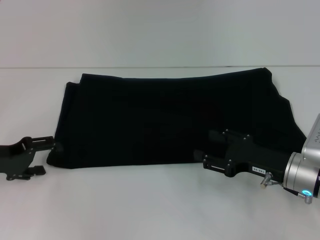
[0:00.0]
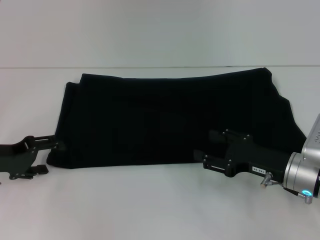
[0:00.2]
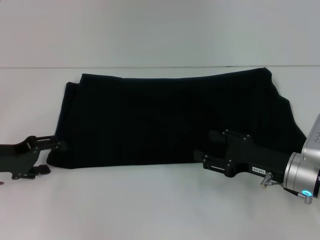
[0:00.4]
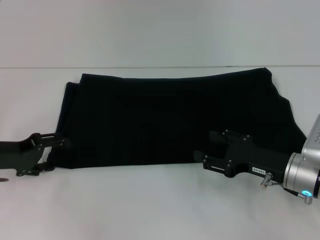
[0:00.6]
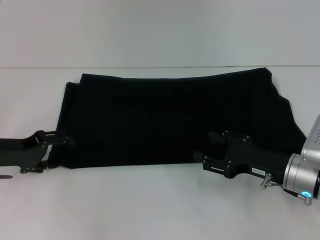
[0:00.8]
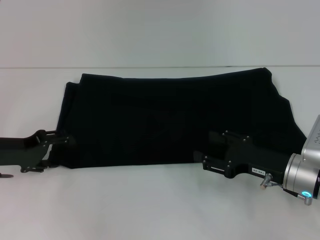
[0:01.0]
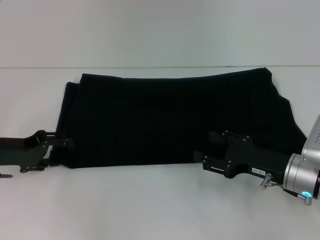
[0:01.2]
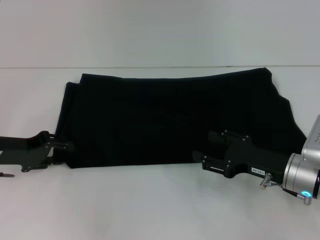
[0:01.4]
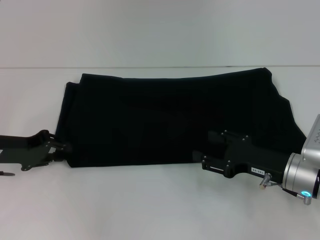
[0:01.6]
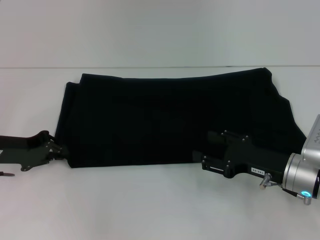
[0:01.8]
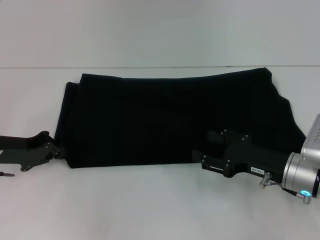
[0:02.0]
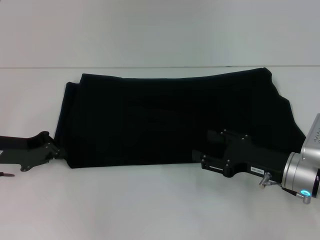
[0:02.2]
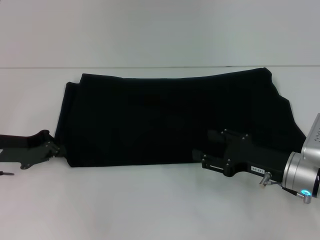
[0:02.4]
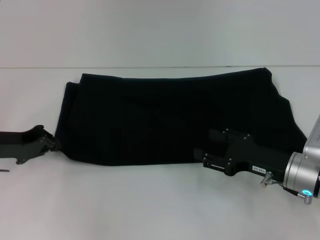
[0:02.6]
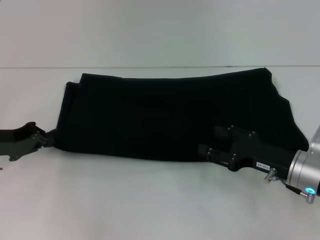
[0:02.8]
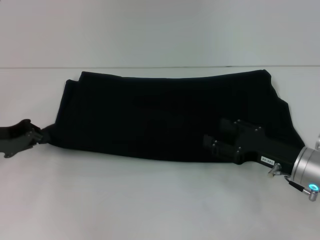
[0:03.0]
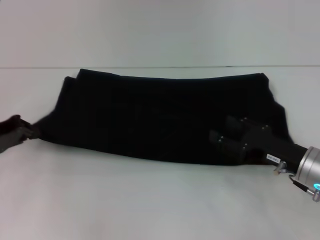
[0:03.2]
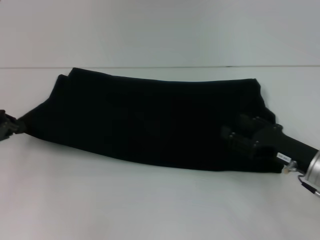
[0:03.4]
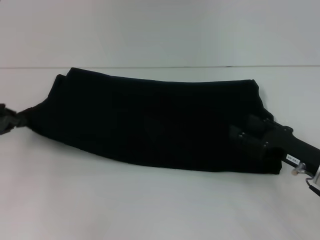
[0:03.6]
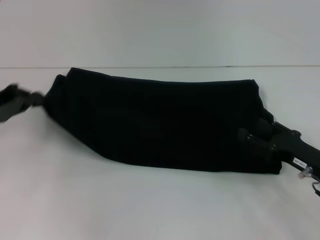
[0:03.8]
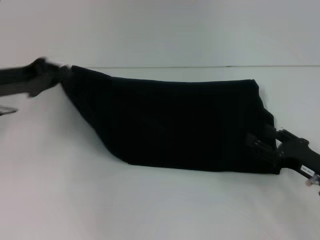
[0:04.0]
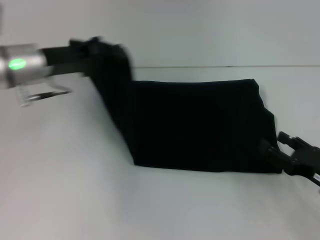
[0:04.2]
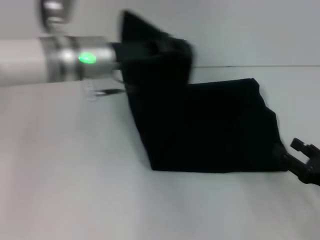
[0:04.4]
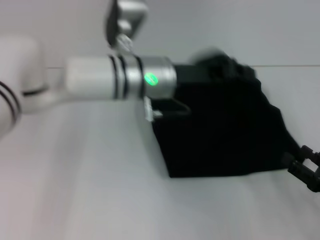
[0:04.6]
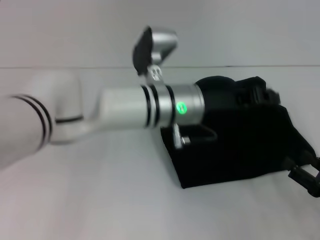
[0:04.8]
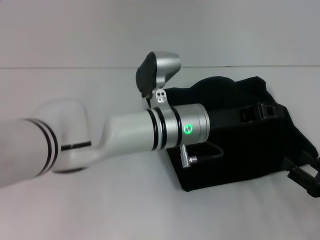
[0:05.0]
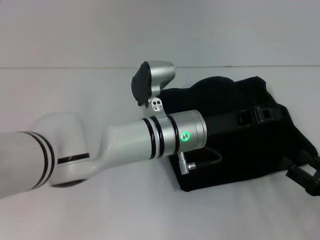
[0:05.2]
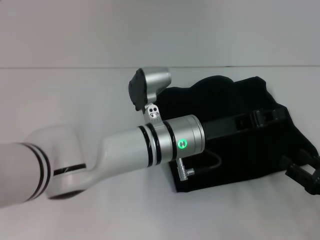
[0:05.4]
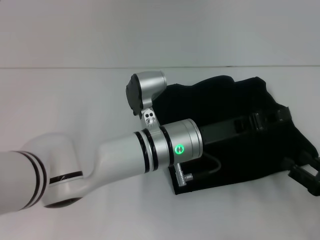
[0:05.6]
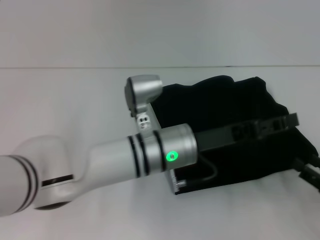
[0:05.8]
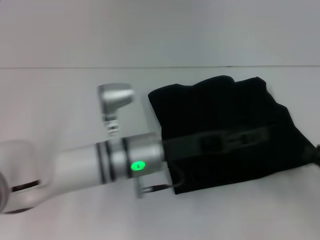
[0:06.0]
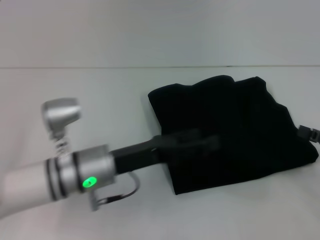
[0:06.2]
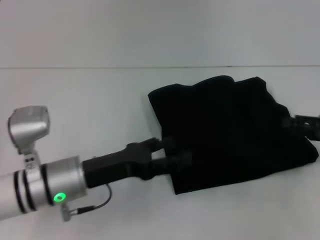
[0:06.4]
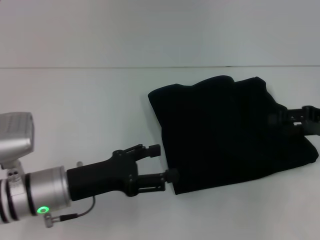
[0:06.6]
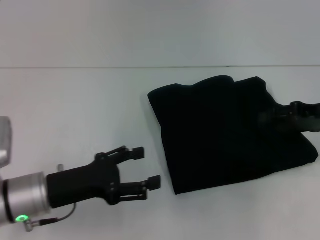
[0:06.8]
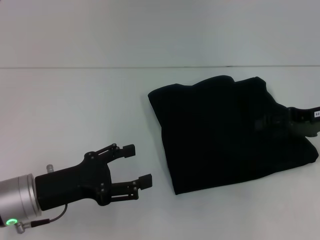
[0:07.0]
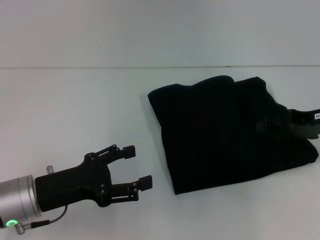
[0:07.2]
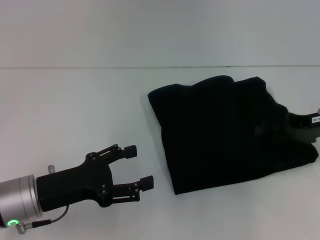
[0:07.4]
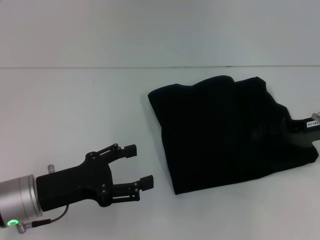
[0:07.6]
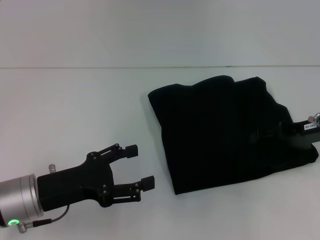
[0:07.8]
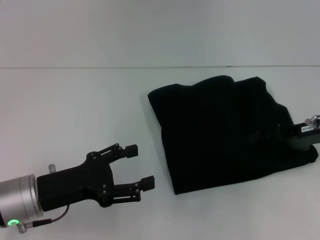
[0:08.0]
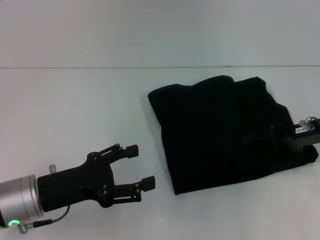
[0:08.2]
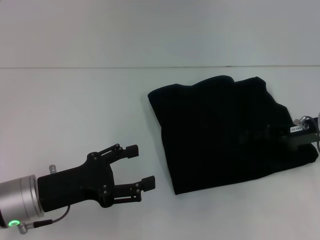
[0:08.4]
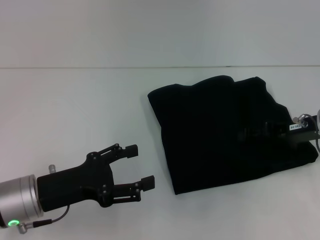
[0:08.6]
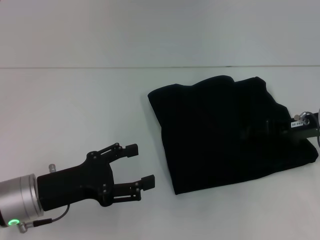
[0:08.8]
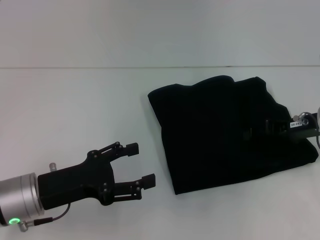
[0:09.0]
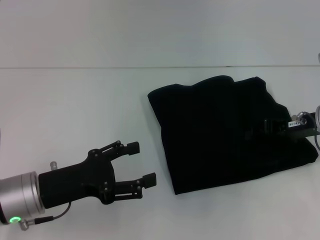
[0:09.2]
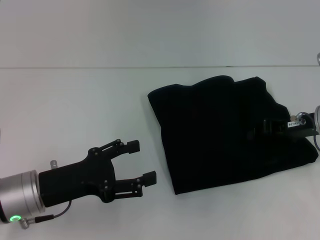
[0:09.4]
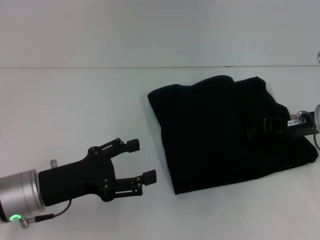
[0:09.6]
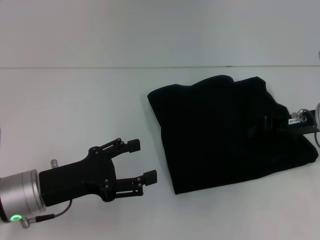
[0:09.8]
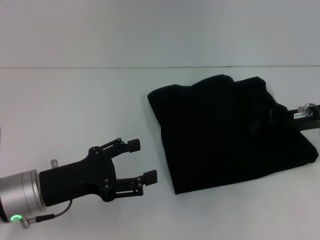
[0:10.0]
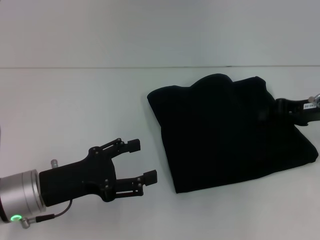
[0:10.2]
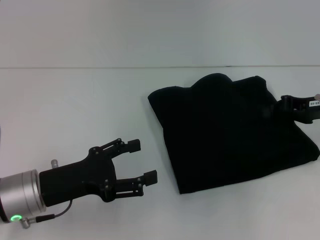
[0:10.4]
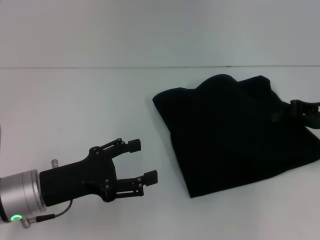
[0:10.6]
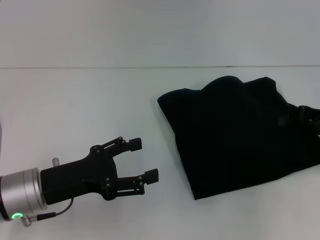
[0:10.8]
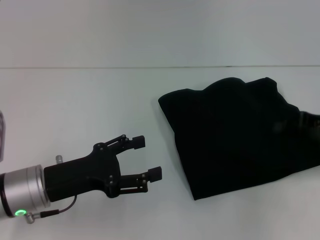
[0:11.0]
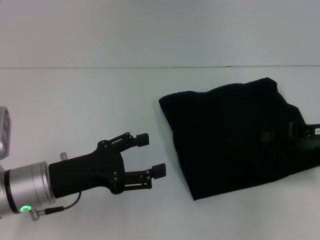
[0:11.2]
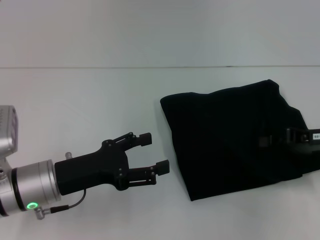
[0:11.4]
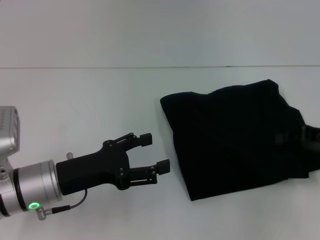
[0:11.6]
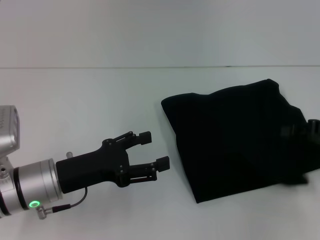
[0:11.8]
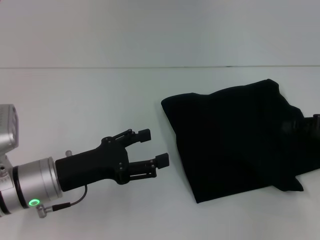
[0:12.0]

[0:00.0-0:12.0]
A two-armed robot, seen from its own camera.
Step, 0:00.0 to 0:06.4: Fold the clothes with your left hand.
0:00.0 to 0:01.6: The left gripper closes its fingers.
0:01.6 to 0:03.0: The left gripper closes up.
0:03.0 to 0:04.4: The left gripper shifts some 20 cm to the right, upward and forward; the right gripper goes some 10 cm to the right and backward.
0:04.4 to 0:06.0: The left gripper heads downward, backward and to the right, covering approximately 15 cm, and opens up.
0:06.0 to 0:07.6: The right gripper moves forward and upward, about 20 cm. Meanwhile the left gripper heads to the left and backward, covering roughly 15 cm, and opens its fingers.
0:07.6 to 0:09.0: There are only small adjustments of the grippers.
0:09.0 to 0:10.4: The right gripper closes.
0:10.4 to 0:12.0: The right gripper shifts by about 5 cm.

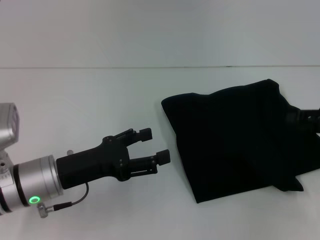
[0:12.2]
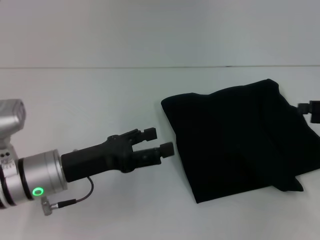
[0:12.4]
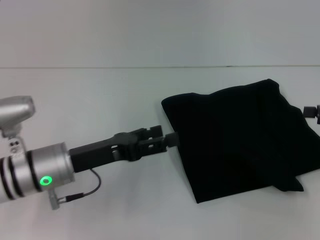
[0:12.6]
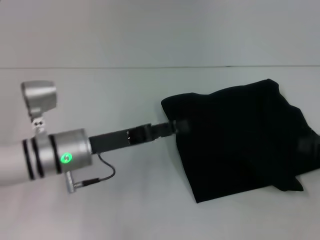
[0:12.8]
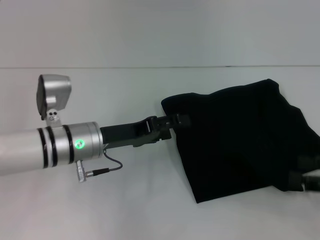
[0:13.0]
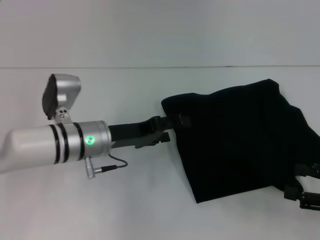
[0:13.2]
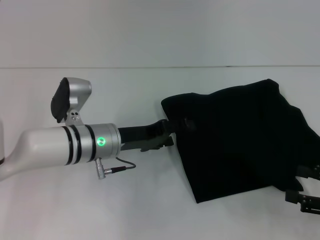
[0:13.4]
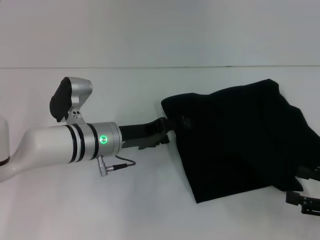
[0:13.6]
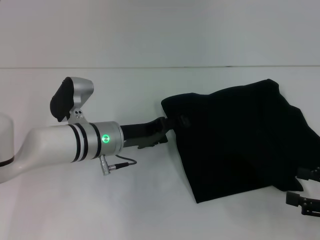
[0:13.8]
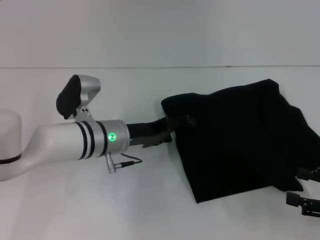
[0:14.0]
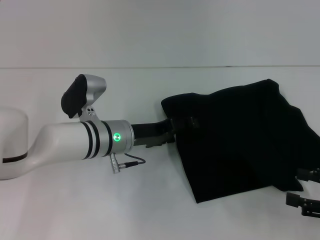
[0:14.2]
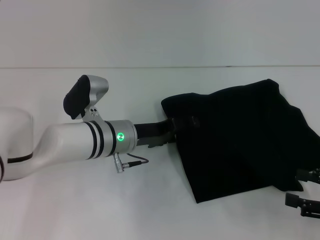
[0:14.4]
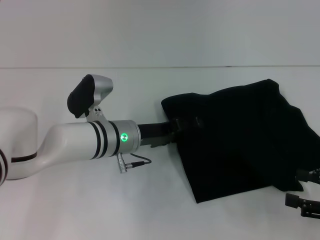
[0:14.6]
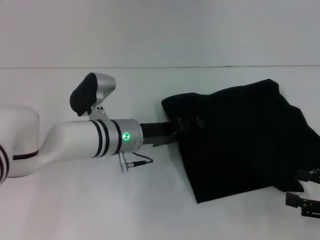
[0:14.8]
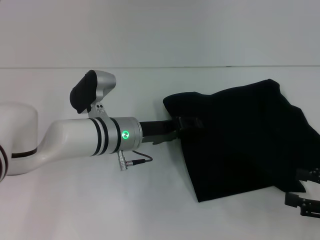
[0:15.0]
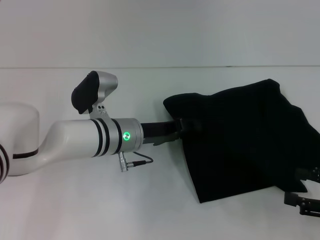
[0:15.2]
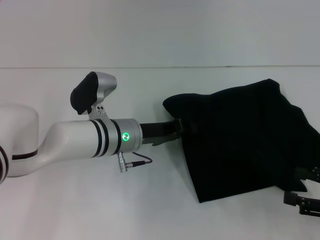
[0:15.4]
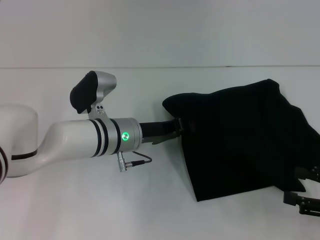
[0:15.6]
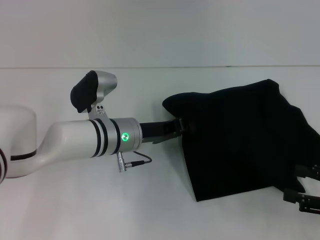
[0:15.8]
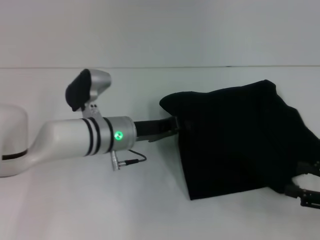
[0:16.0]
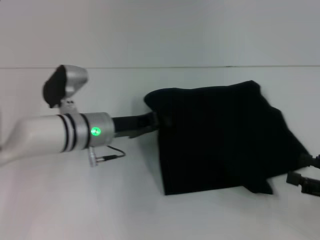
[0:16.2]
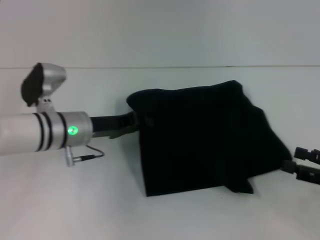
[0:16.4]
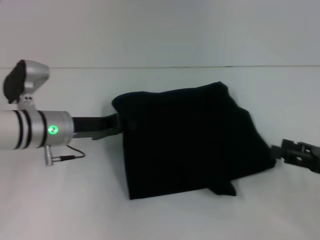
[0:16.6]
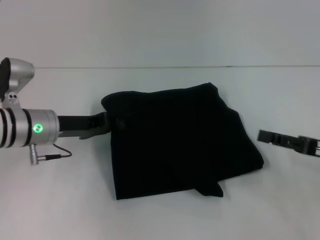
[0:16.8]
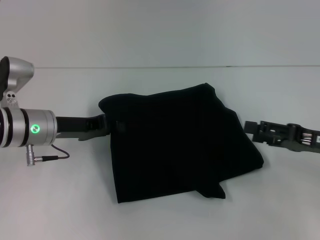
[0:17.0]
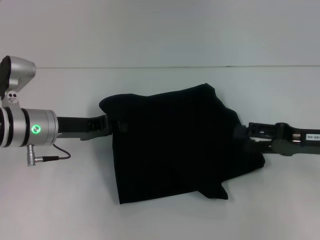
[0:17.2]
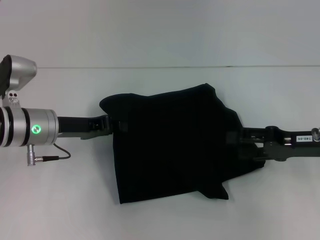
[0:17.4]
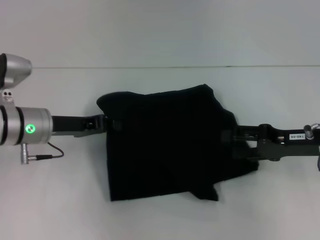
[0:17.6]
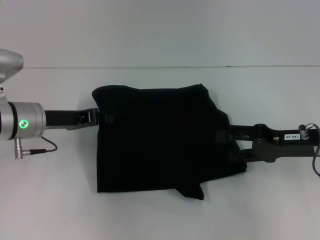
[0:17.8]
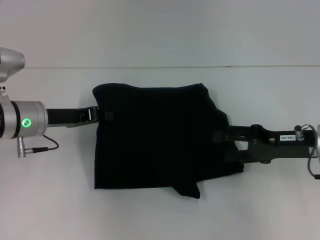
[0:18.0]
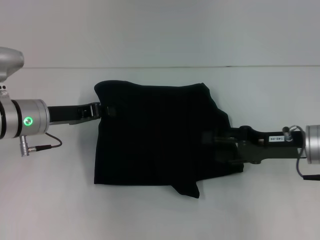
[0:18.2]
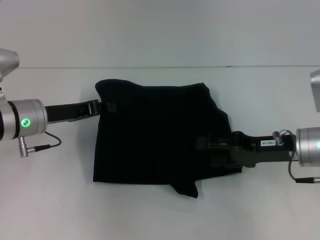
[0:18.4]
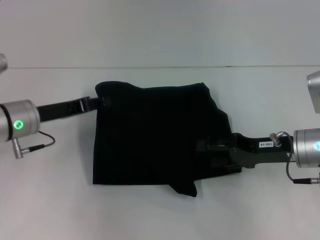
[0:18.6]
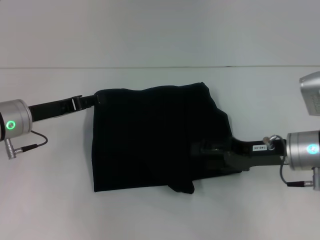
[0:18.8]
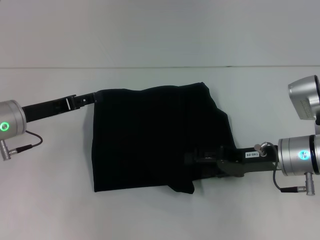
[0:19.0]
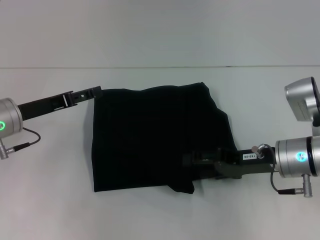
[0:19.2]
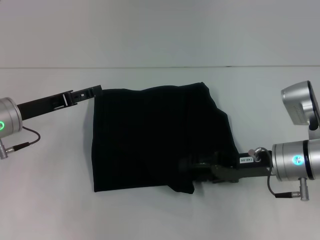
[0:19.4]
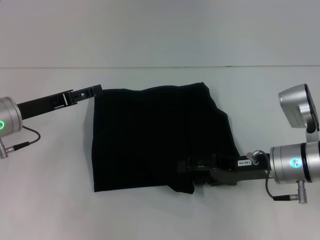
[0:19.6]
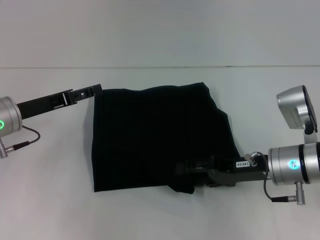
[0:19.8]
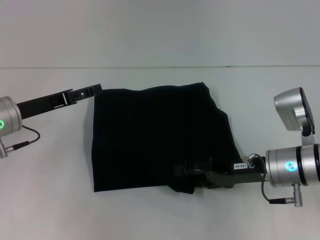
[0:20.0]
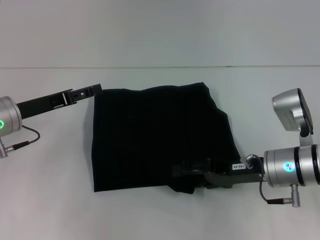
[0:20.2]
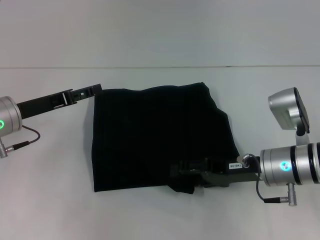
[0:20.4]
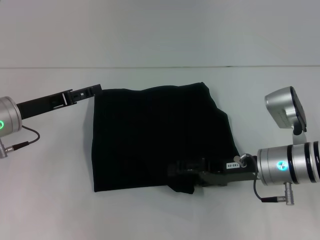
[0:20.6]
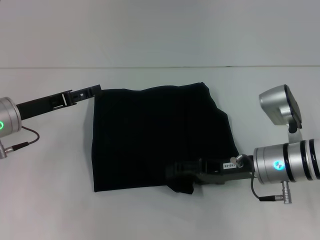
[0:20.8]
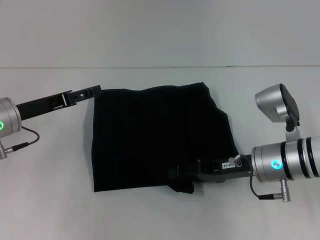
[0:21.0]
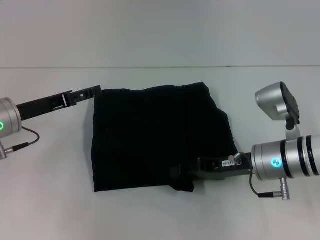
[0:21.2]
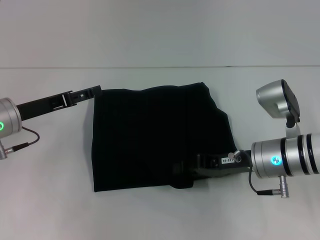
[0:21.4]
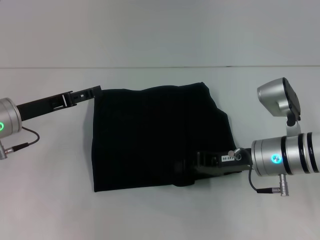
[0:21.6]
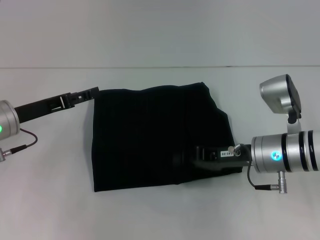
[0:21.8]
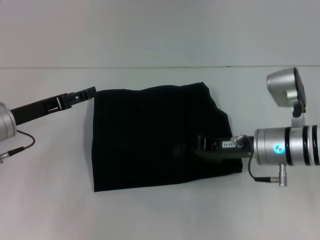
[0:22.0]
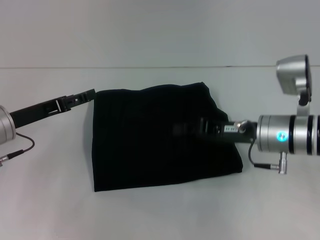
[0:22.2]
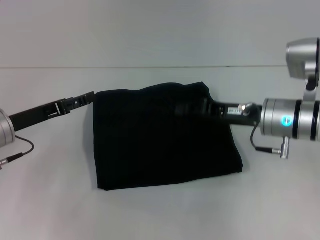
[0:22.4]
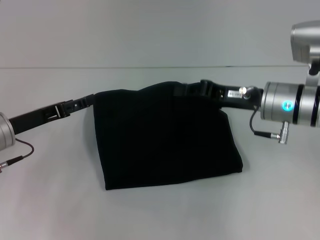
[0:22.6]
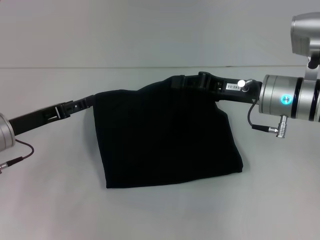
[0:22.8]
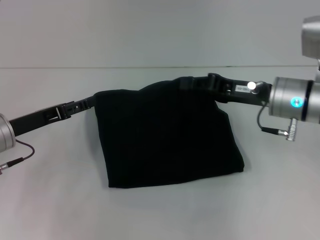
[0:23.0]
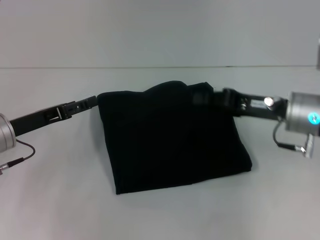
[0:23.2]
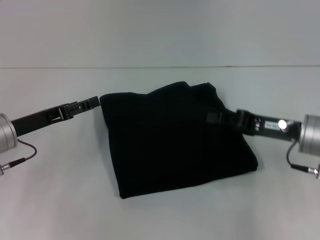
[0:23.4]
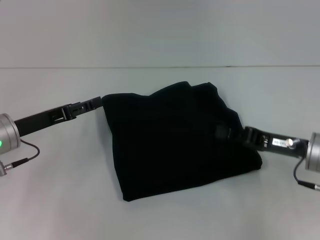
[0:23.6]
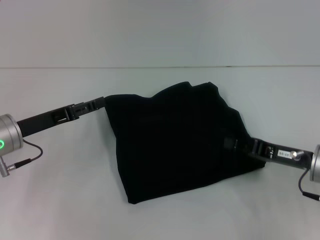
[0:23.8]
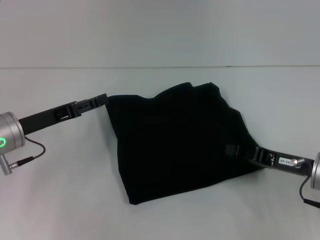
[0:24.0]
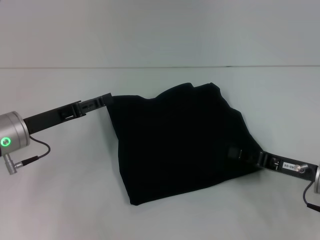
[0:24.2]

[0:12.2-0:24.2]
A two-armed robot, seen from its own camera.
0:12.2 to 0:13.8: The right gripper shifts about 10 cm backward, and opens its fingers; the left gripper is displaced forward and to the right by roughly 10 cm.
0:13.8 to 0:15.2: The grippers stay close to where they were, moving slightly.
0:15.2 to 0:16.6: The left gripper is displaced to the left by roughly 10 cm, and closes.
0:16.6 to 0:18.2: The right gripper goes roughly 10 cm to the left and forward.
0:18.2 to 0:19.8: The left gripper opens; the right gripper shifts by some 5 cm.
0:19.8 to 0:21.2: The grippers move only a little.
0:21.2 to 0:22.6: The right gripper moves upward, roughly 5 cm, and closes up.
0:22.6 to 0:24.2: The right gripper moves to the right, backward and downward, roughly 15 cm.
